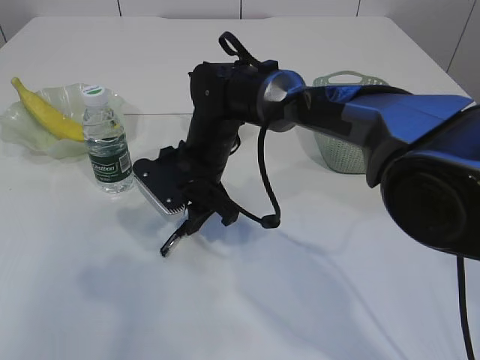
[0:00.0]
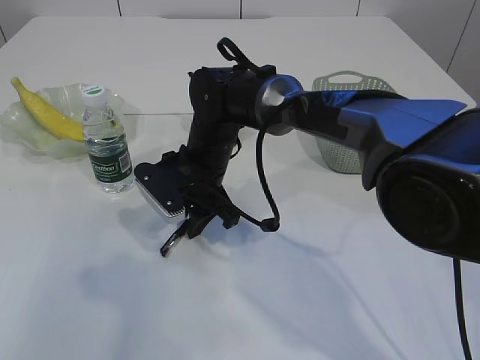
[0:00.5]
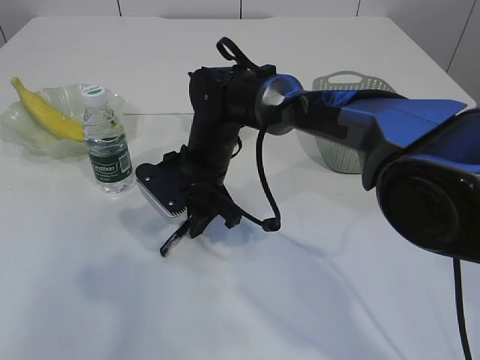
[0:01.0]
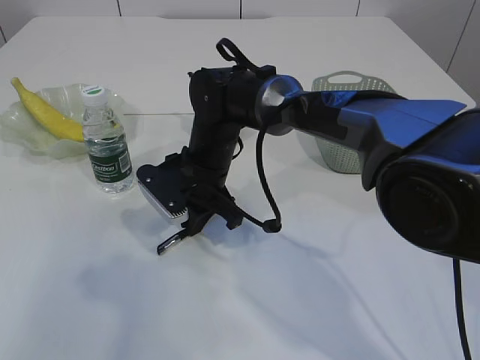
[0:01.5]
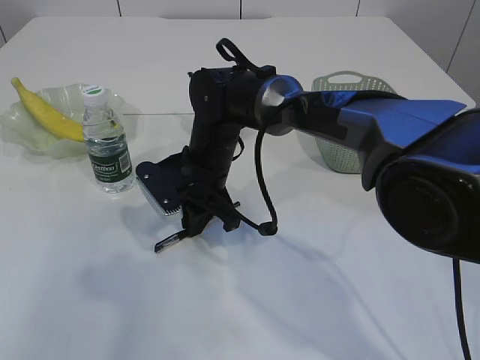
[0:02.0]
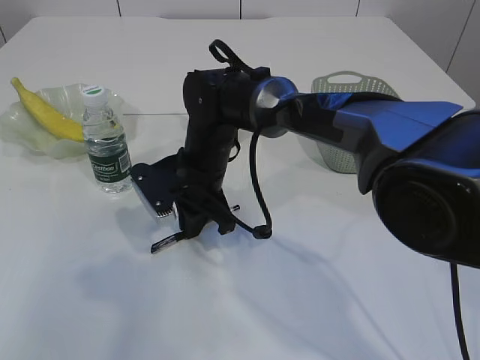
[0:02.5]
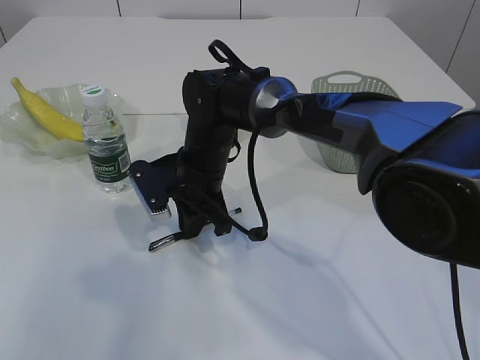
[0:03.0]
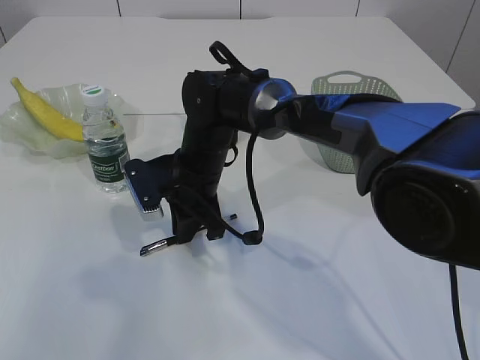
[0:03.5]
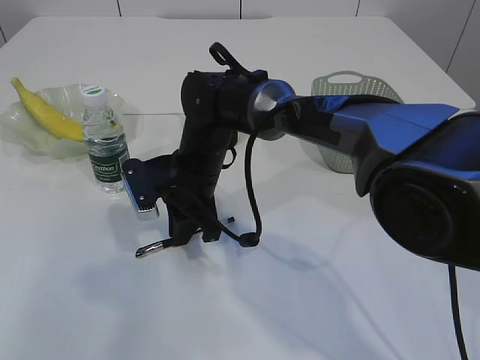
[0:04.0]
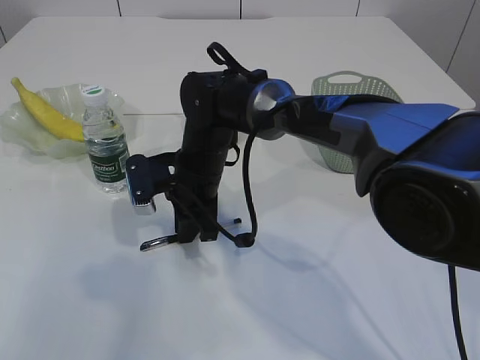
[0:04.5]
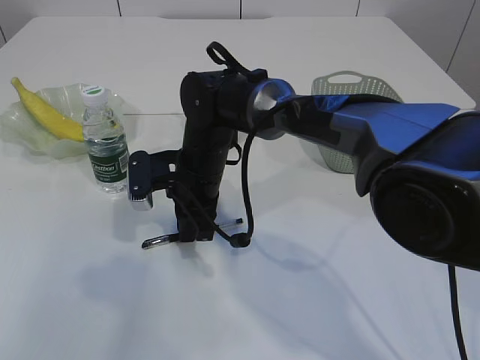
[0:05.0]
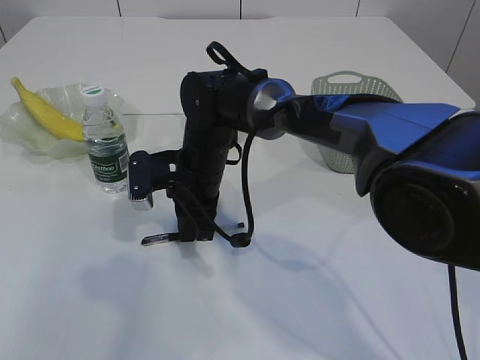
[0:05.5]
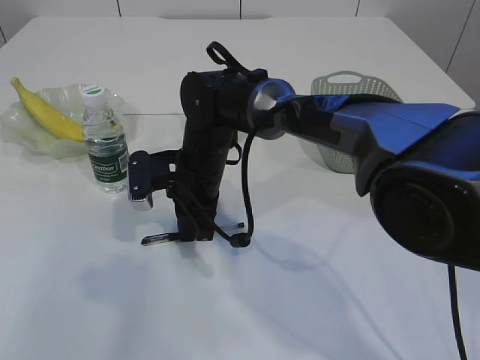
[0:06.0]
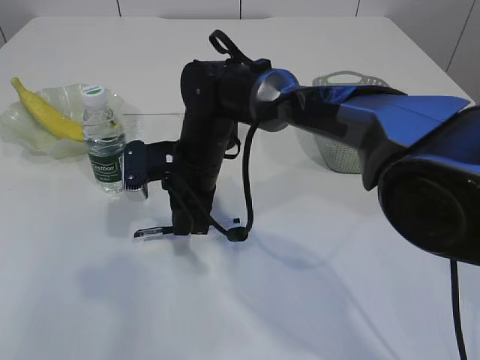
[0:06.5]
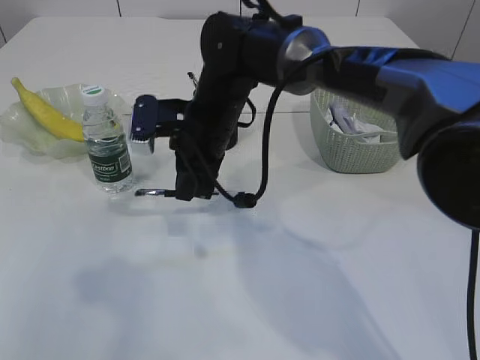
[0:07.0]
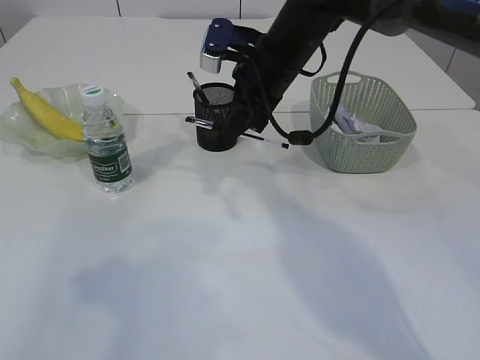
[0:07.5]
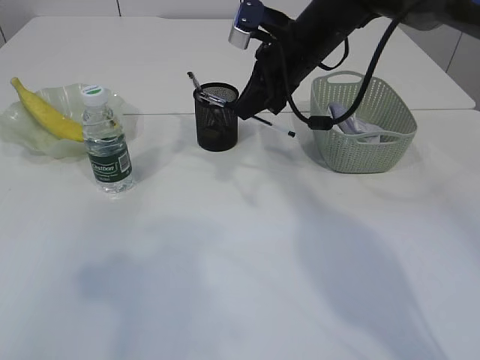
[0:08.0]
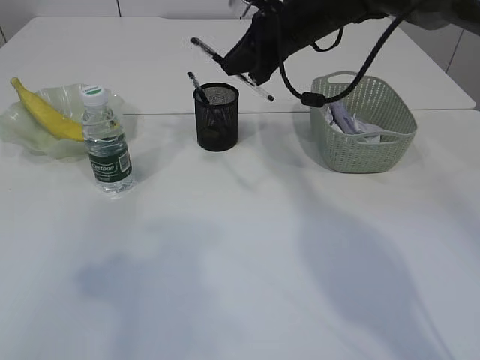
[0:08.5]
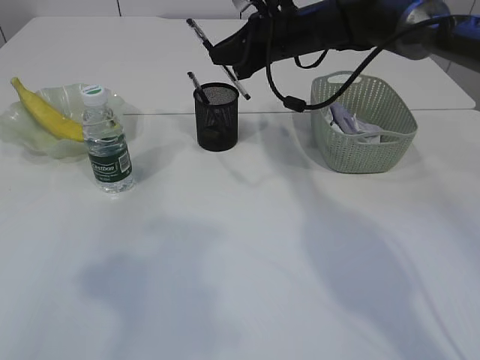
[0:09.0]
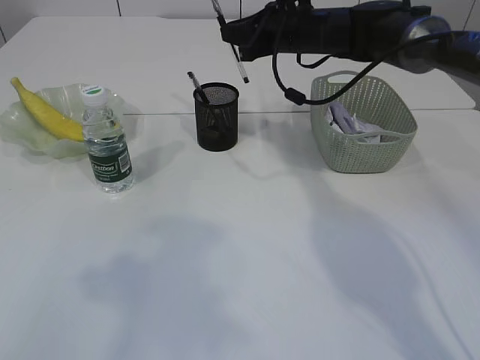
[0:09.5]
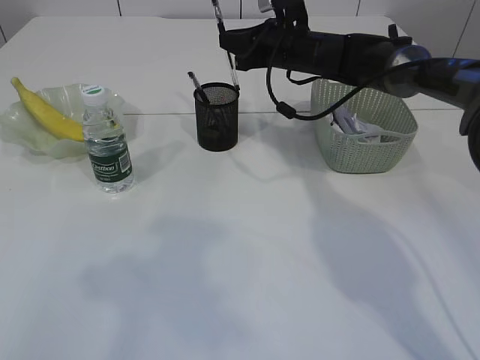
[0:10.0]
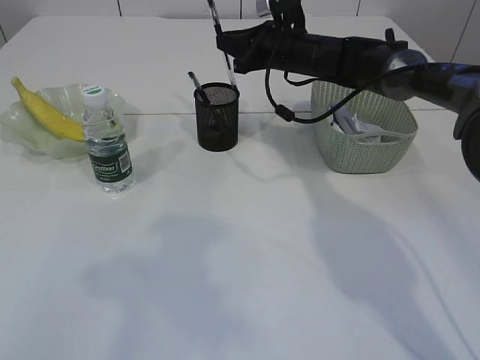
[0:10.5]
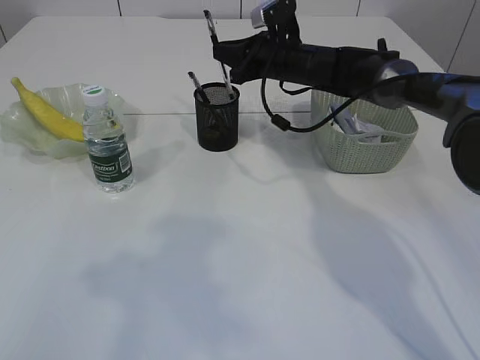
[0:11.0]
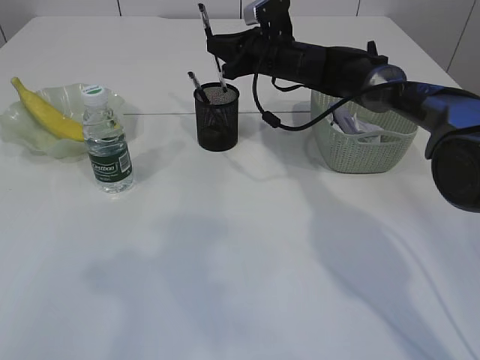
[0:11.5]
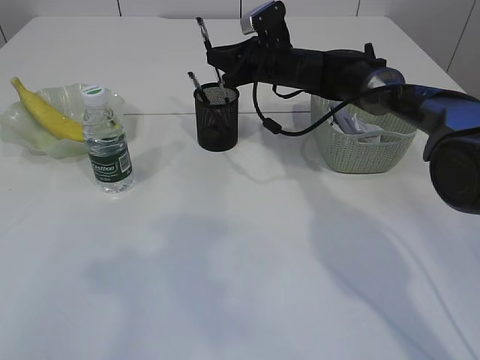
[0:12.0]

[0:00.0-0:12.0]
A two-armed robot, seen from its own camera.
Step, 0:00.0 to 0:07.0: Pick up the pen with right arm.
0:00.0 to 0:02.0: The right gripper closes its fingers.
0:02.0 to 0:04.0: There are only small adjustments of the grippers.
0:04.0 to 0:06.0: The grippers move only a little.
0:06.0 to 0:08.0: The right gripper heads to the right, upward and forward, covering some 20 cm.
0:08.0 to 0:10.0: The right gripper goes some 10 cm forward.
0:10.0 to 0:12.0: There are only small adjustments of the grippers.

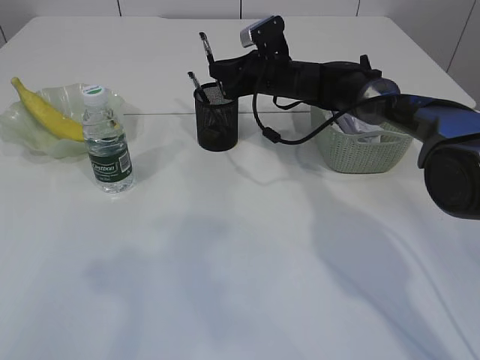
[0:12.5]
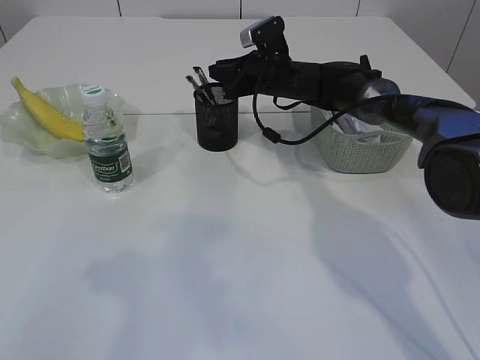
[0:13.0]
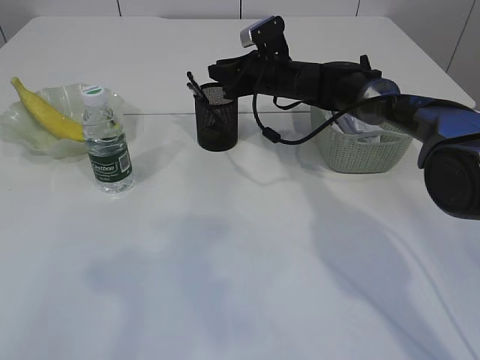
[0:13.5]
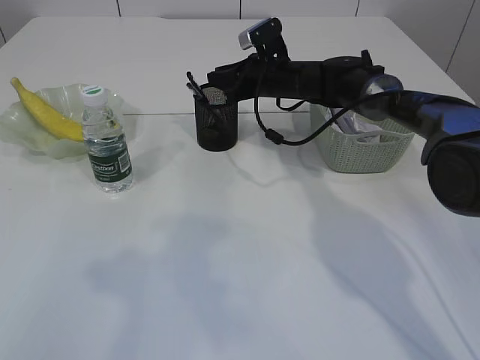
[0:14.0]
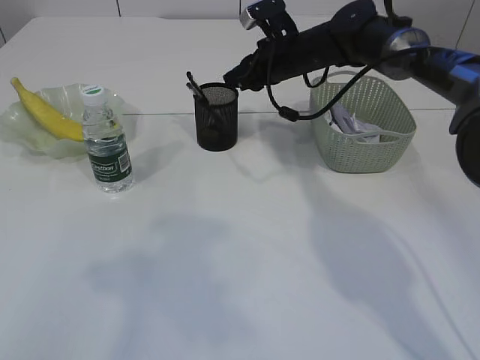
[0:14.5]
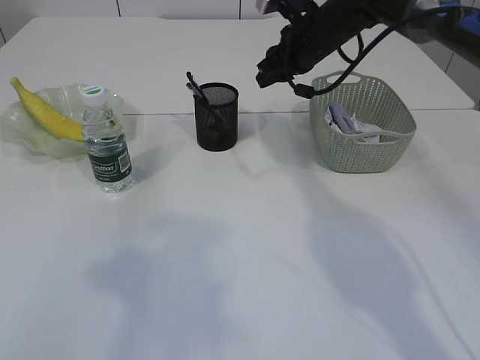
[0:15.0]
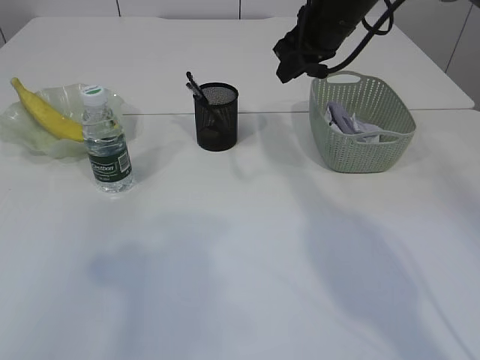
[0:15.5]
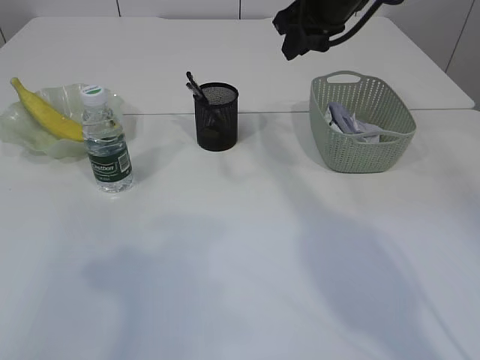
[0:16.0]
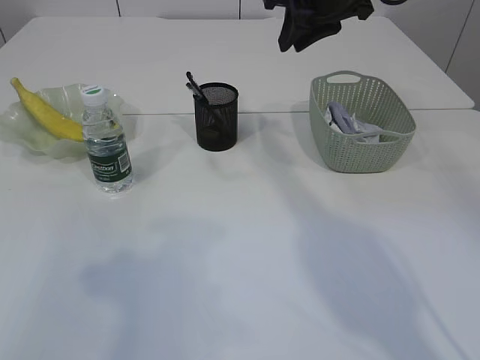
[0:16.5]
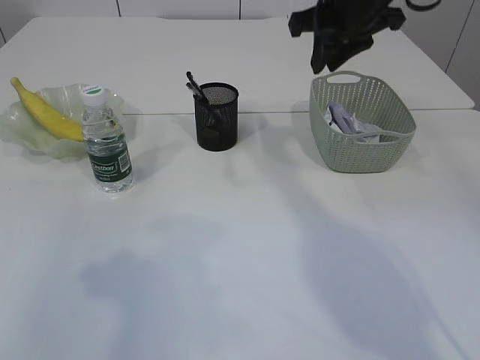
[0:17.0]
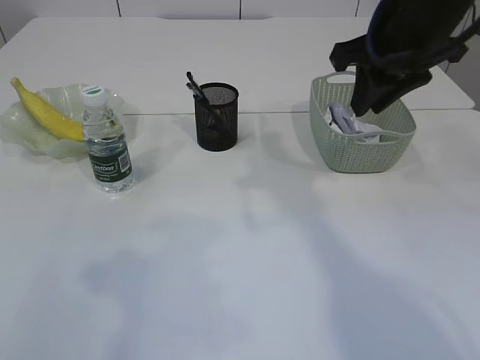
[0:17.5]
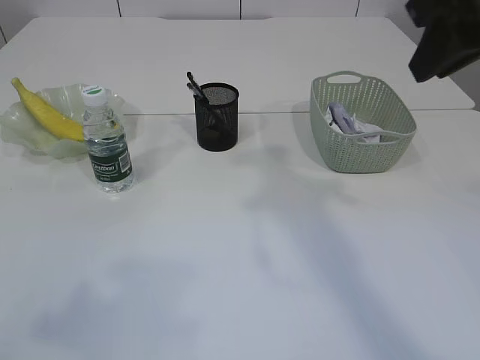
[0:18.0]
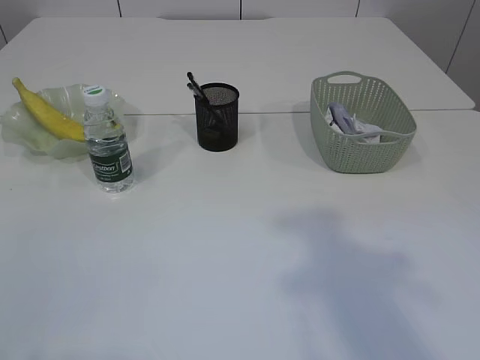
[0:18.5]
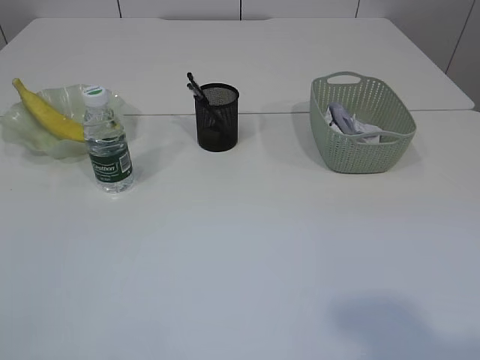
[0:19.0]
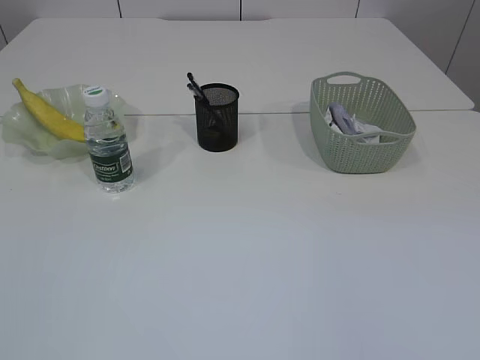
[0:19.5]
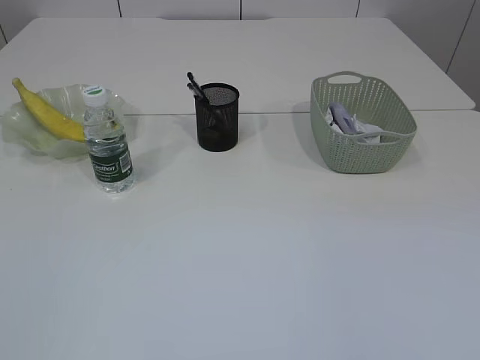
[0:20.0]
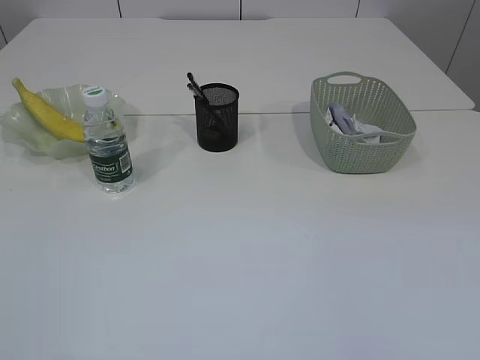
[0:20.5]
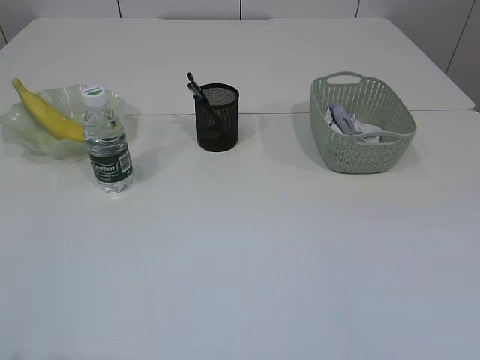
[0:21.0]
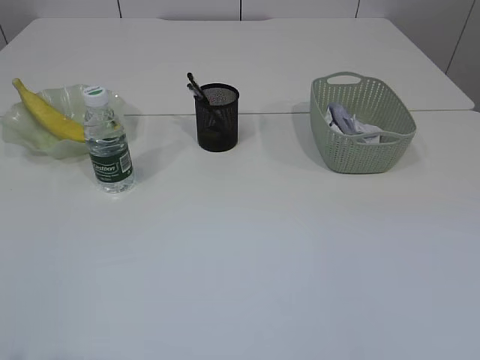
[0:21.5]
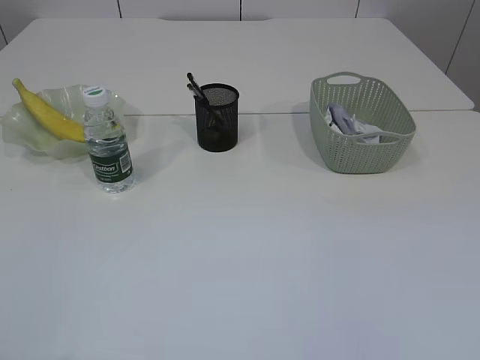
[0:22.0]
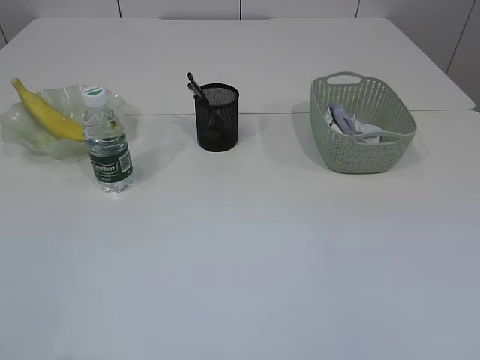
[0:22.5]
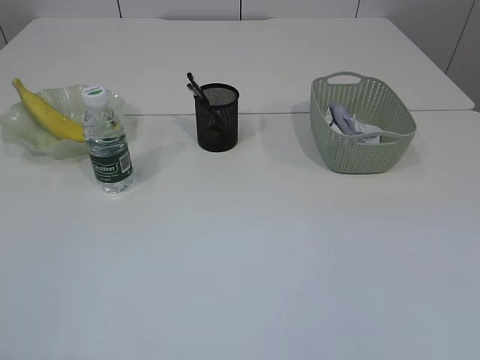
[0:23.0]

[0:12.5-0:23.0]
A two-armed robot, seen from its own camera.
Step, 0:12.5 to 0:14.5: Place the pen into the pen holder.
0:14.5 to 0:16.5: The right gripper shifts about 15 cm upward and backward.
0:16.5 to 0:19.0: The left gripper moves backward, roughly 20 cm, while the right gripper shifts some 40 cm backward.

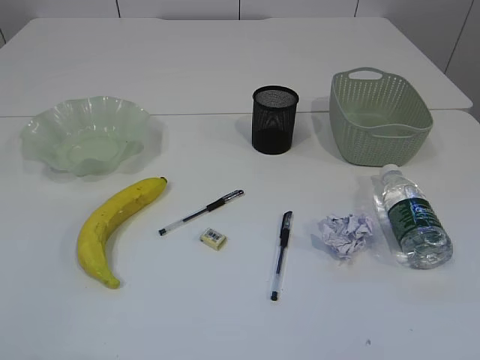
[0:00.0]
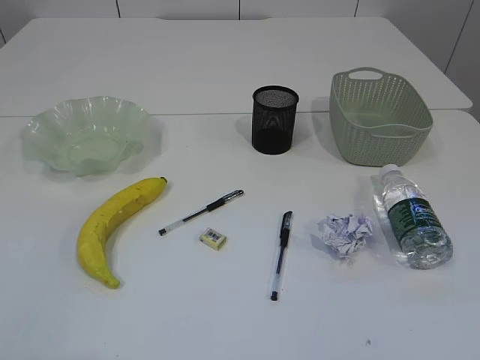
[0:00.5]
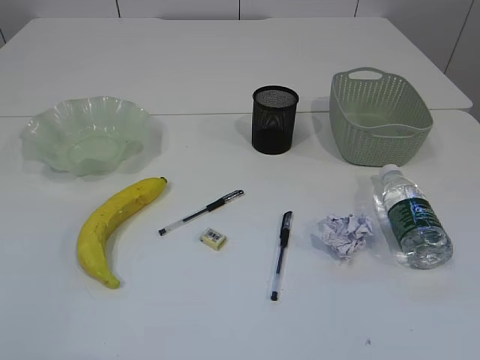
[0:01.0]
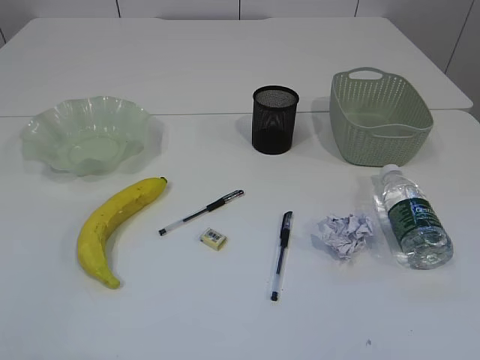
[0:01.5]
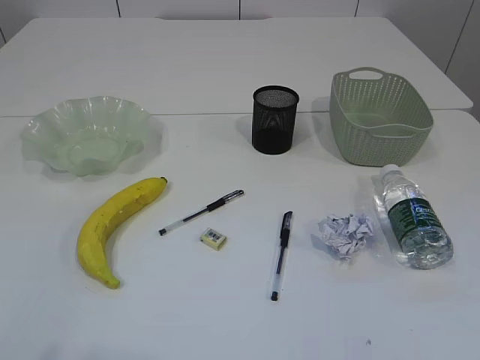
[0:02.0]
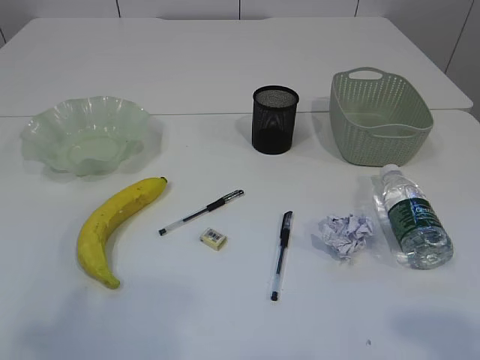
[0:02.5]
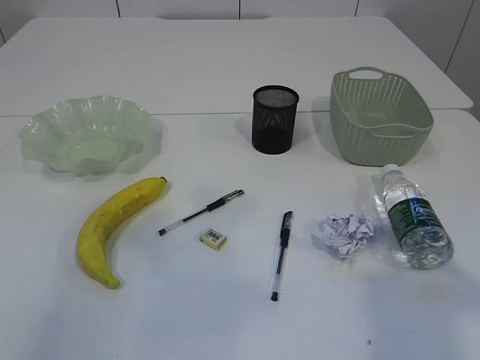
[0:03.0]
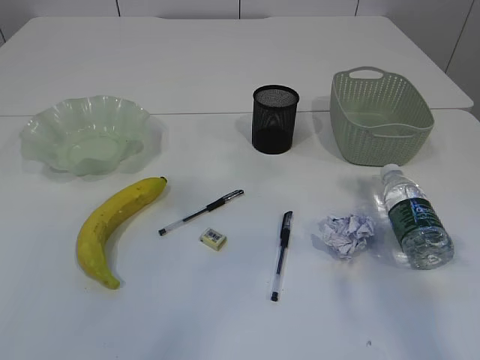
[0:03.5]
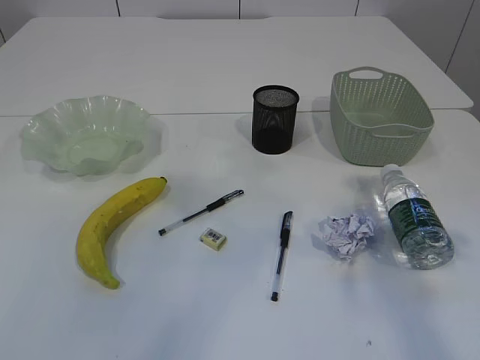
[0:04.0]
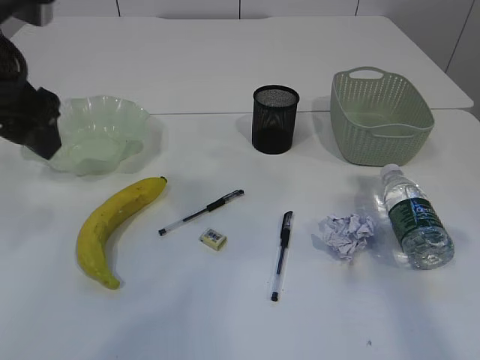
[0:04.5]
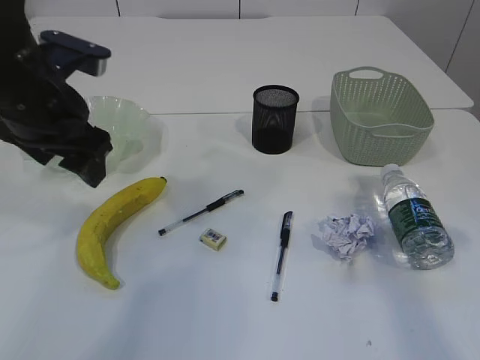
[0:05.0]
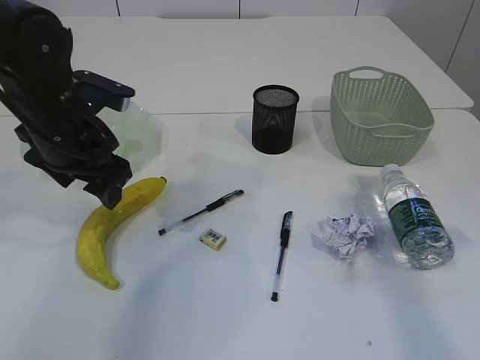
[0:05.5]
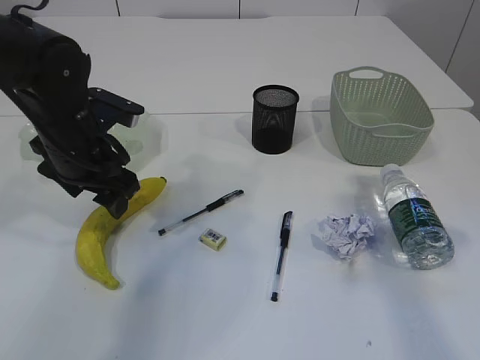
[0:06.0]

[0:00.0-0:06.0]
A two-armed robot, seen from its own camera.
0:02.0 to 0:04.0: Both grippers move forward, roughly 25 cm.
0:04.0 to 0:06.0: The left gripper moves downward and forward, some 25 cm, and opens up.
